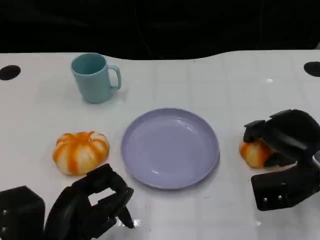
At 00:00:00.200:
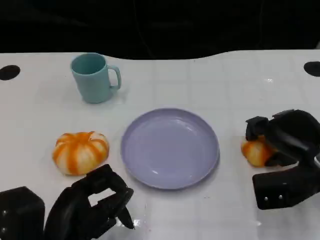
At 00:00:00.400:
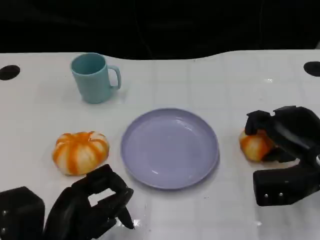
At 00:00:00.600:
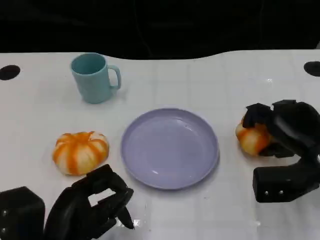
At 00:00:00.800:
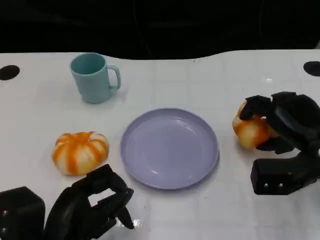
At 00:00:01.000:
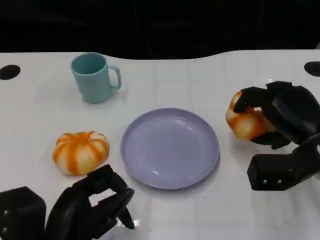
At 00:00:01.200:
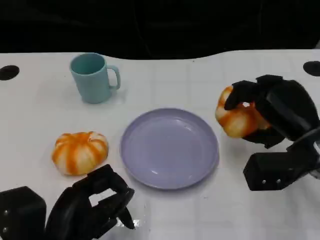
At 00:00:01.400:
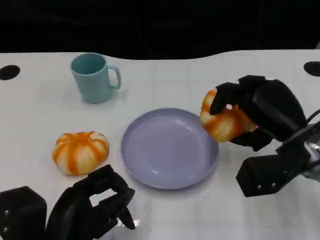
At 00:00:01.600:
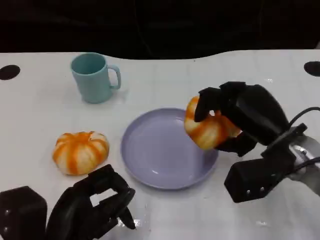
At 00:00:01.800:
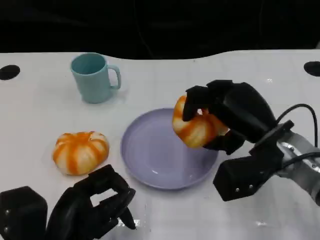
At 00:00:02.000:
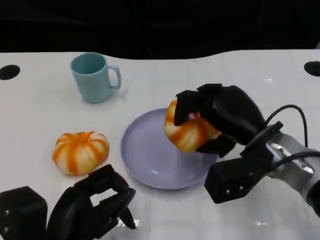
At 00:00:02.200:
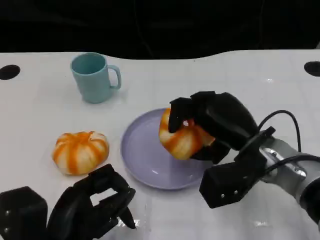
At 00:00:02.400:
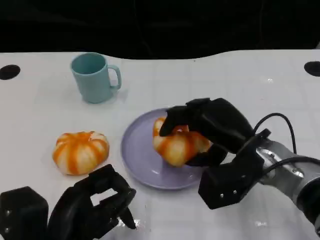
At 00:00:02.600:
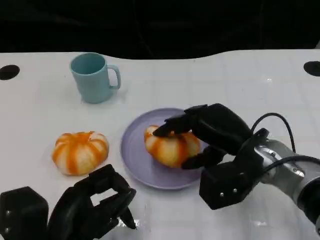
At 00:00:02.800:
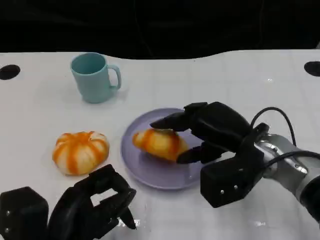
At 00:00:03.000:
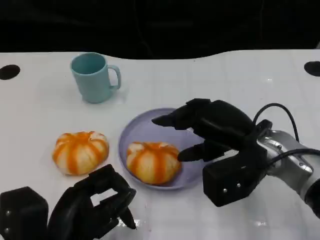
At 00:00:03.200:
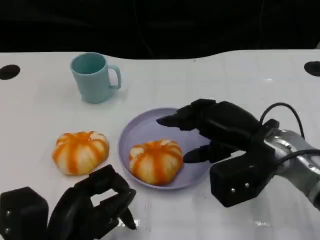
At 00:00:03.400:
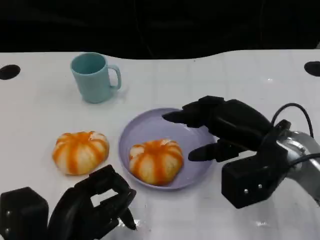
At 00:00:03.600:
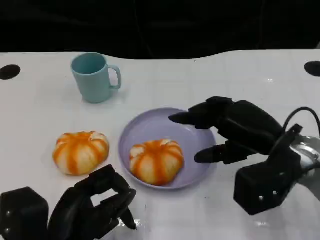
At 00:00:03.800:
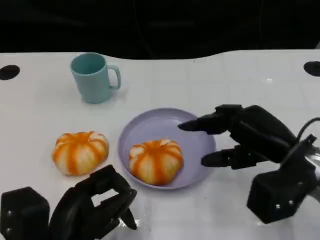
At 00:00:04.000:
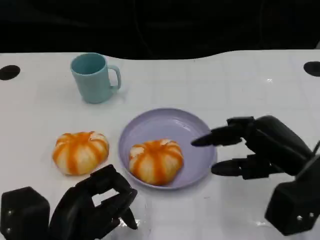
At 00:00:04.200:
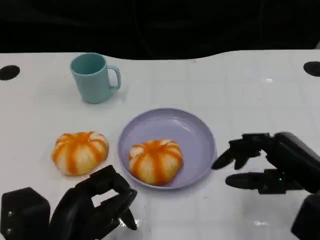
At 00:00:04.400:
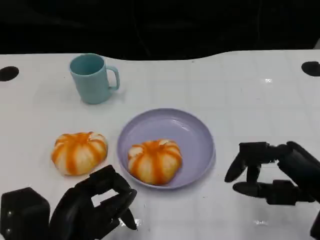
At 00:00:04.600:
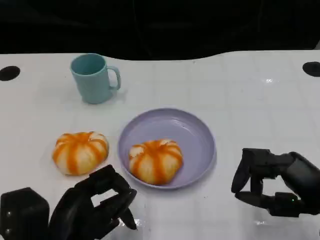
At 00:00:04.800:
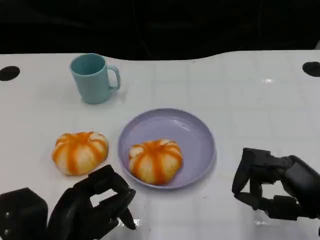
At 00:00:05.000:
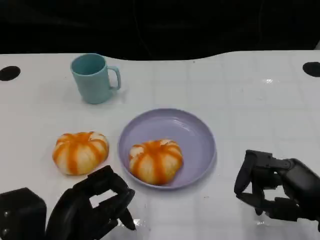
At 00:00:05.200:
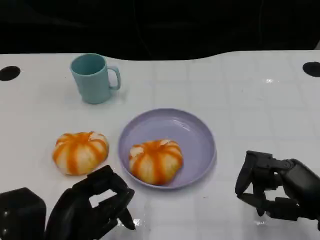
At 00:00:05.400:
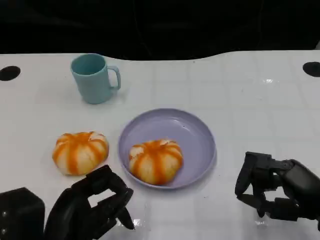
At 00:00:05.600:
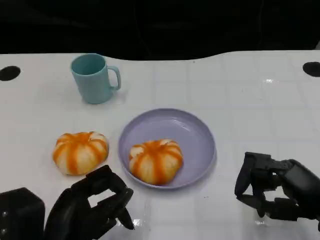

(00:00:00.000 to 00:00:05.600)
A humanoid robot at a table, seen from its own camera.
Task of the whole recording: Grasp the bread from the table and place it into the plate.
00:00:00.000 - 00:00:01.400: The right hand ends up about 5 cm from where it was.
00:00:01.400 - 00:00:02.800: The right hand travels to the left by approximately 5 cm.
00:00:02.800 - 00:00:04.200: The right hand moves to the right and backward, roughly 15 cm.

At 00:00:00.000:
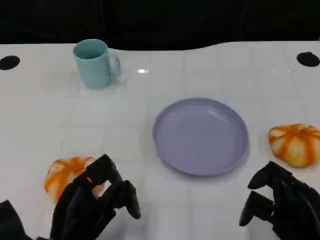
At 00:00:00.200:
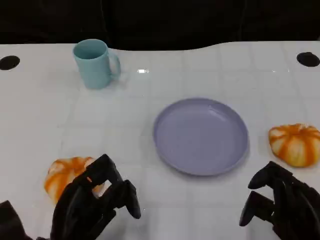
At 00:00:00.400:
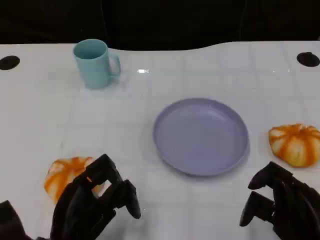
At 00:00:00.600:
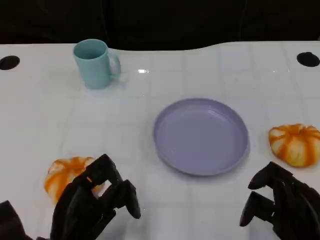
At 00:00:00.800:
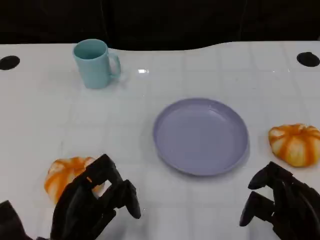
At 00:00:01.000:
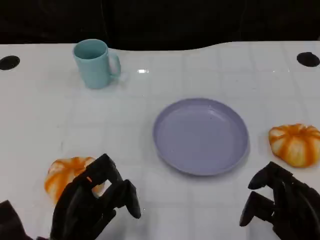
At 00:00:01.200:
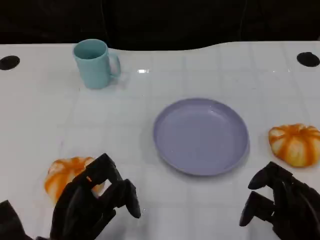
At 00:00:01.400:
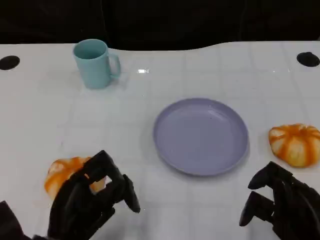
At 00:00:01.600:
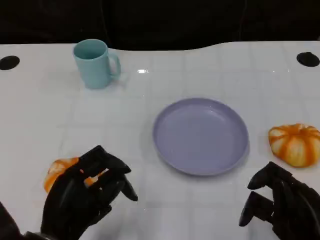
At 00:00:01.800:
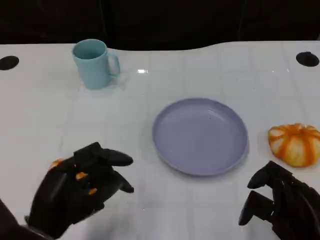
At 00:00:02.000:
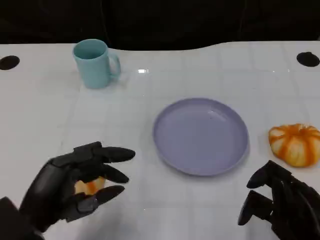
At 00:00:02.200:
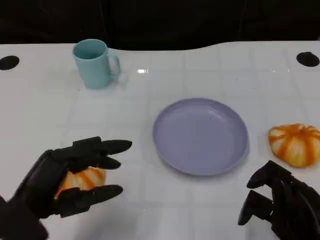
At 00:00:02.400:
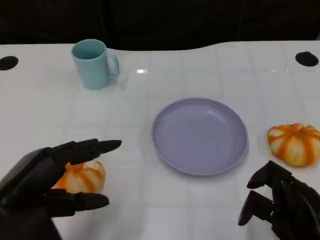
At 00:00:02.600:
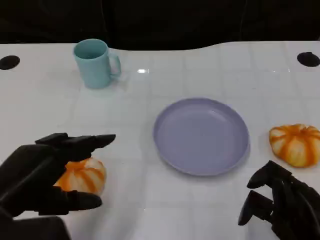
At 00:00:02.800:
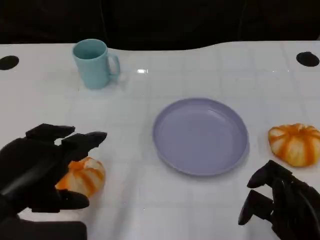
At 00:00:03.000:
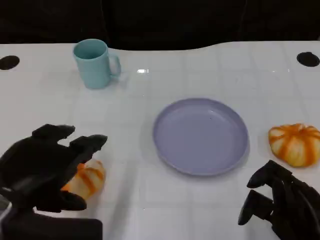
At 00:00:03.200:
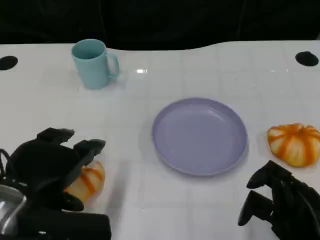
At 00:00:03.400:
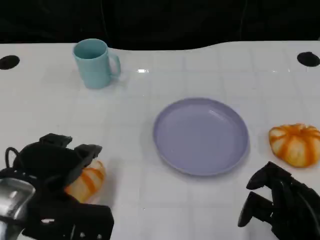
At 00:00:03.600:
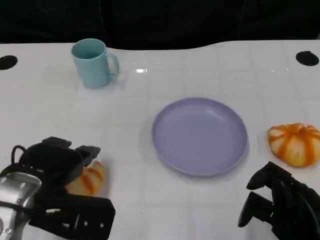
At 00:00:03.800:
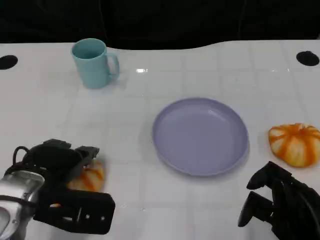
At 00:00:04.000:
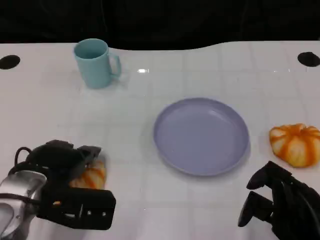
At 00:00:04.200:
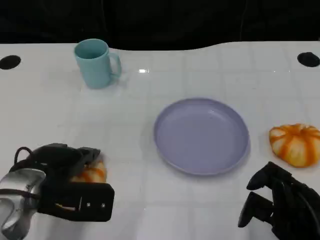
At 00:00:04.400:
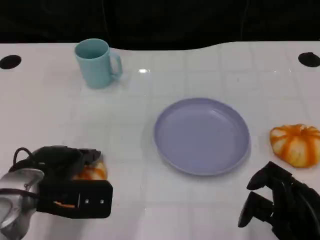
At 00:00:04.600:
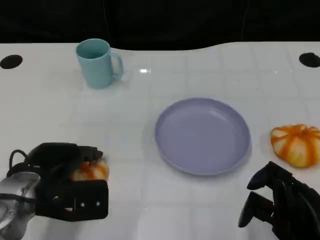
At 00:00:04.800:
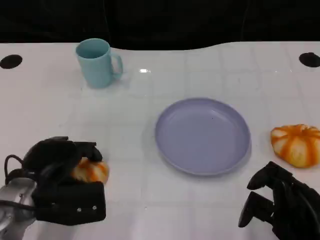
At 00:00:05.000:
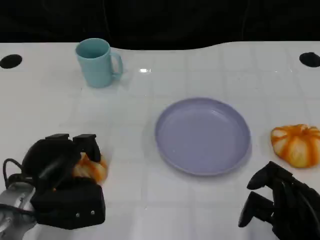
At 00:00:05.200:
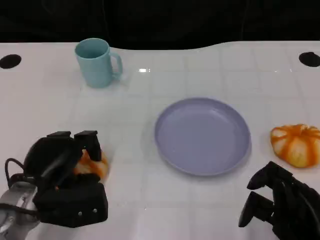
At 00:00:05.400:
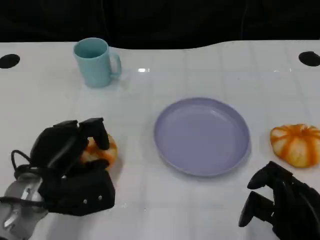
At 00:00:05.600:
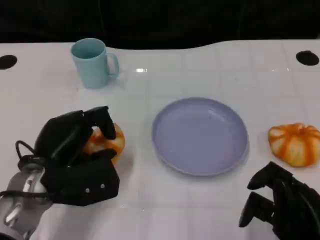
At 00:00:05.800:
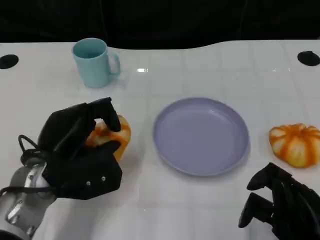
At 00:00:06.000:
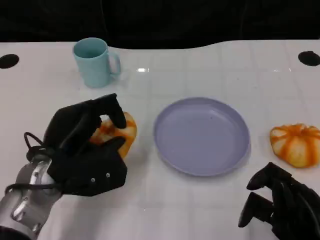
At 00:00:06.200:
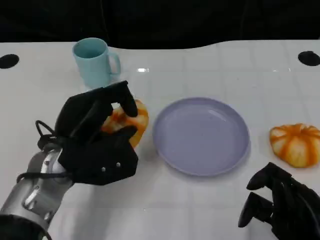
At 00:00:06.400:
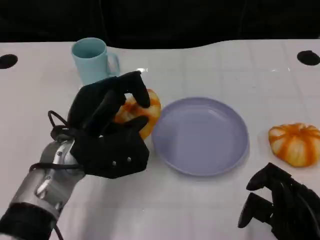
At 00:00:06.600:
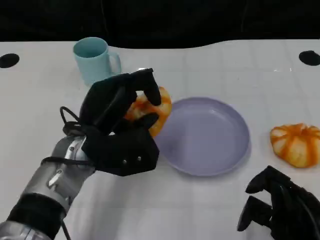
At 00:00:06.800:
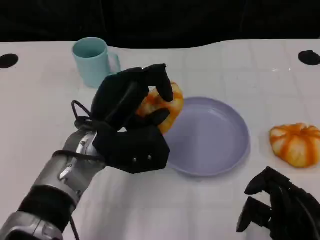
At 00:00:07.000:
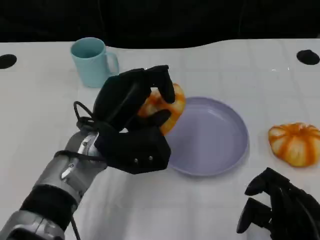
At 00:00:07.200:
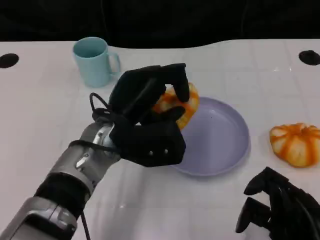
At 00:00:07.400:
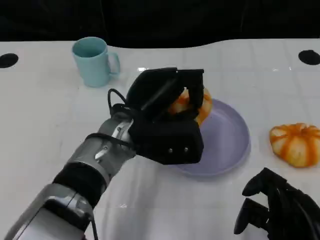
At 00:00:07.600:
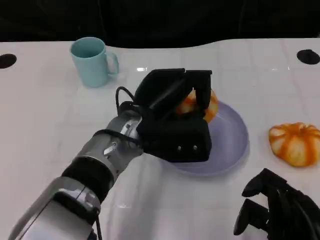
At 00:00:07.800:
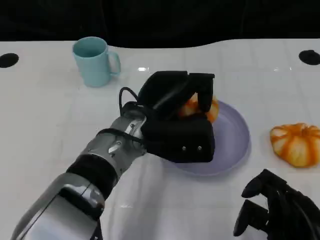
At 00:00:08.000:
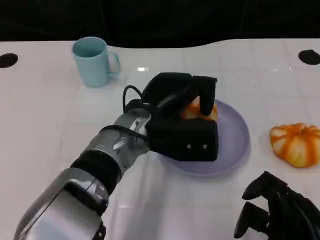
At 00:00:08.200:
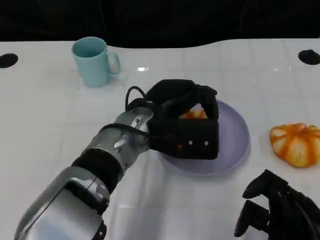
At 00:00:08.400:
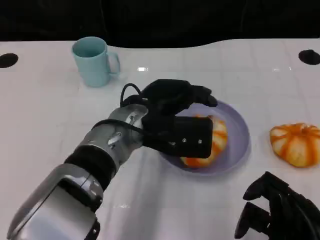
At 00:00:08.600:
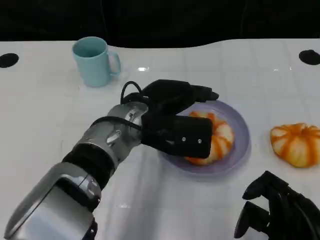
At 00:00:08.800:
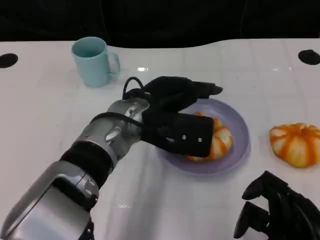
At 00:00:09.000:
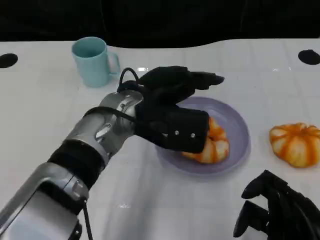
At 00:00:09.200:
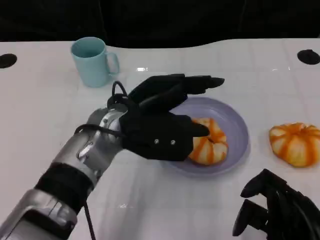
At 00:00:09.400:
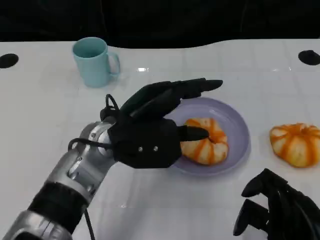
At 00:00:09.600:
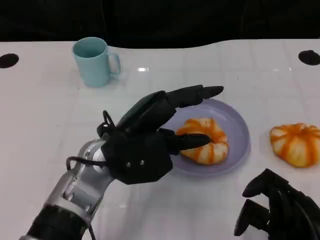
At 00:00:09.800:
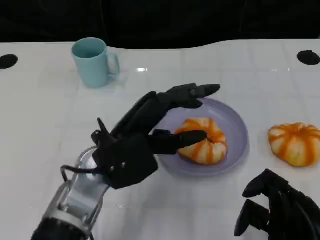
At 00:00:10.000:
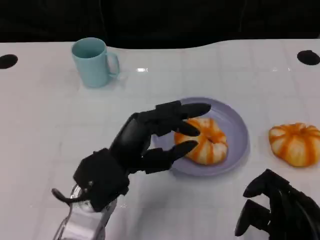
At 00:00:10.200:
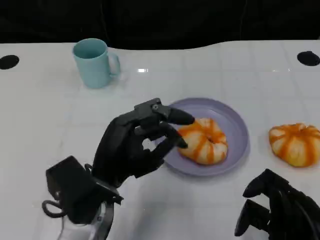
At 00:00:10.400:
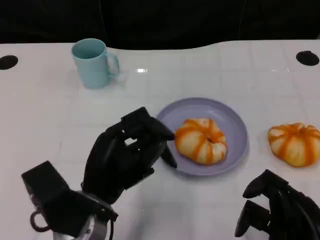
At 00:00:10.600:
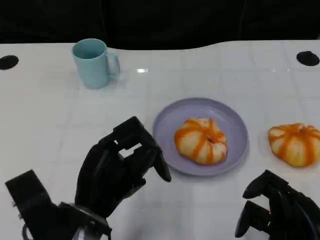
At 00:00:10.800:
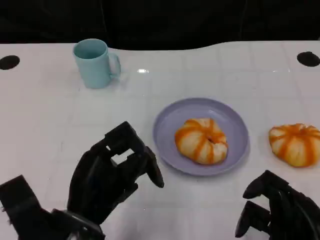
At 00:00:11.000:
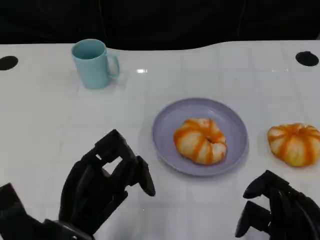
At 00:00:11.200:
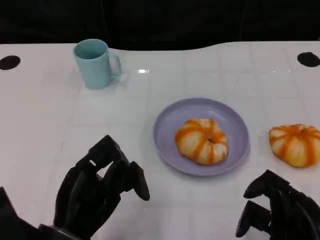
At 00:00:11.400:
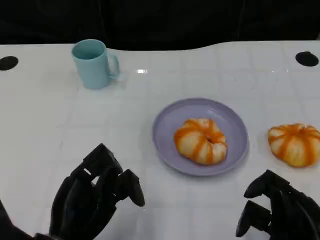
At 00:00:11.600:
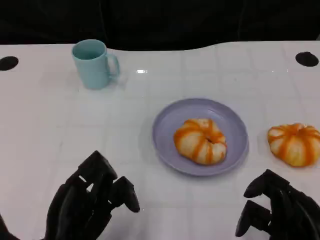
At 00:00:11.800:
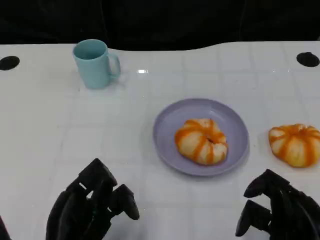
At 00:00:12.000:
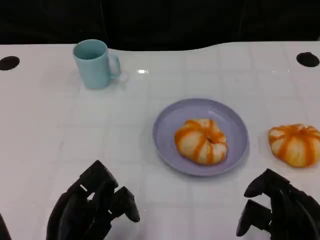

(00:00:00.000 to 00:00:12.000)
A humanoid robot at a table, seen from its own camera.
Task of the whole recording: Grasp the bread from the table and place it into the plate.
00:00:00.000 - 00:00:01.600: The hands make only small movements.
00:00:01.600 - 00:00:03.000: The left hand heads upward, covering roughly 10 cm.
00:00:03.000 - 00:00:04.400: The left hand heads downward and forward, covering about 10 cm.
00:00:06.000 - 00:00:07.600: The left hand travels to the right by roughly 10 cm.
00:00:09.000 - 00:00:10.400: The left hand shifts approximately 15 cm backward, downward and to the left.
00:00:10.400 - 00:00:12.000: The left hand is displaced backward by some 5 cm.
